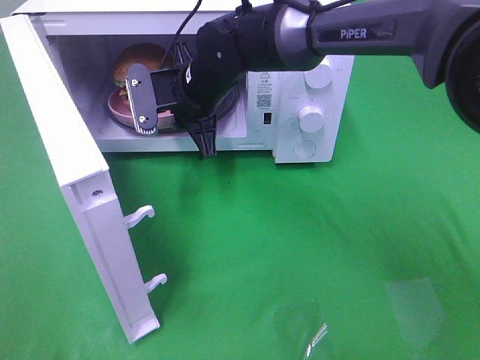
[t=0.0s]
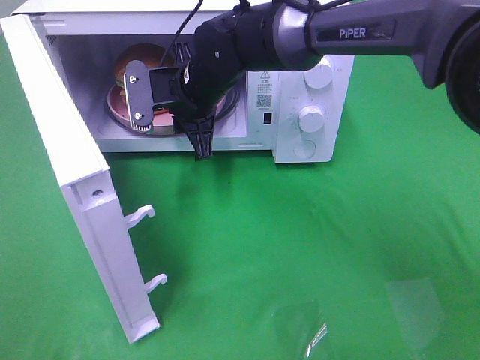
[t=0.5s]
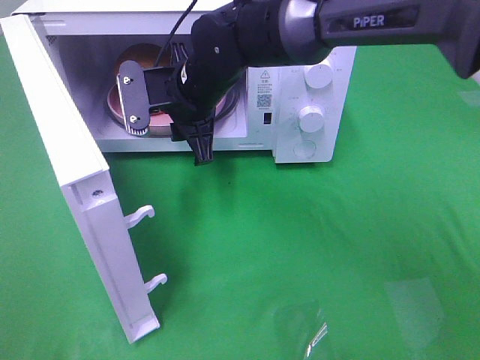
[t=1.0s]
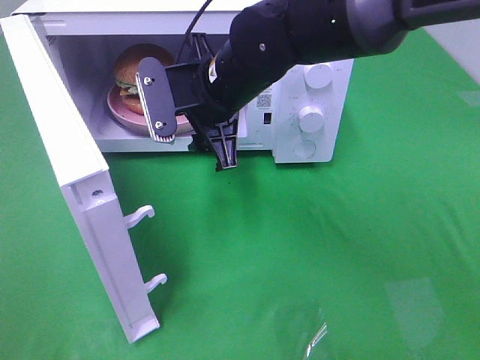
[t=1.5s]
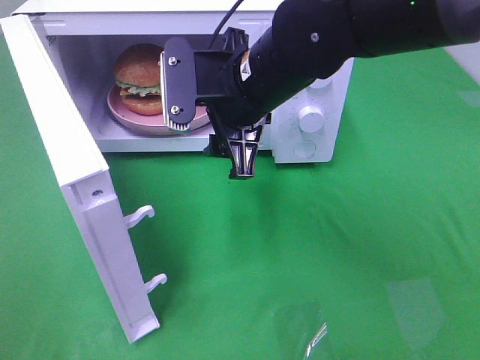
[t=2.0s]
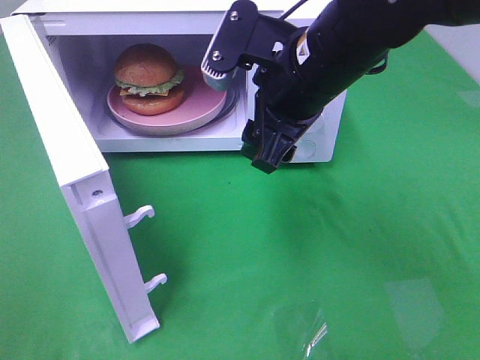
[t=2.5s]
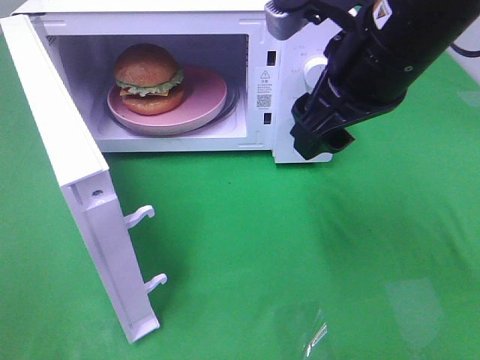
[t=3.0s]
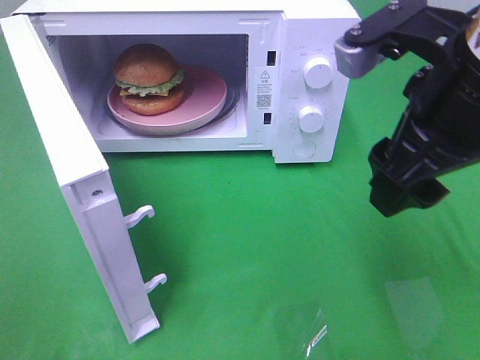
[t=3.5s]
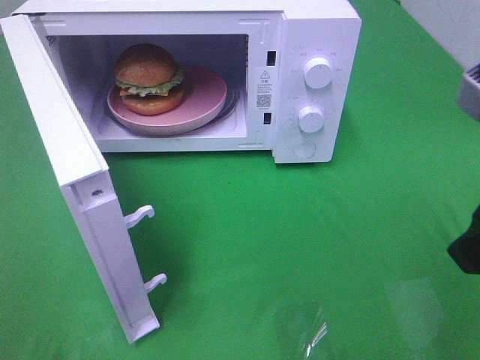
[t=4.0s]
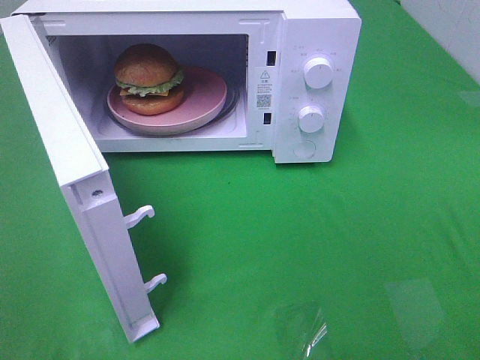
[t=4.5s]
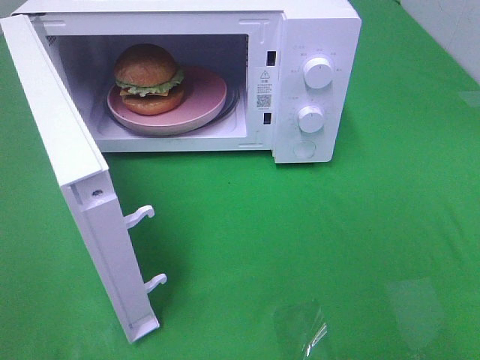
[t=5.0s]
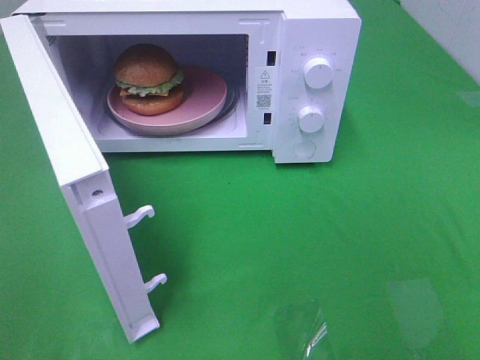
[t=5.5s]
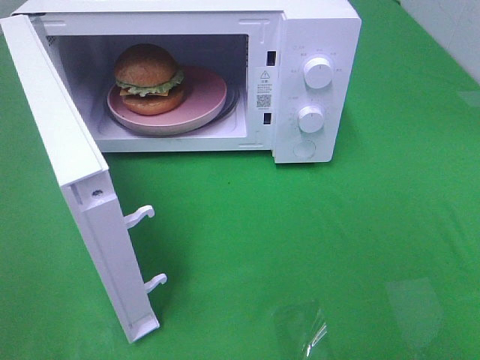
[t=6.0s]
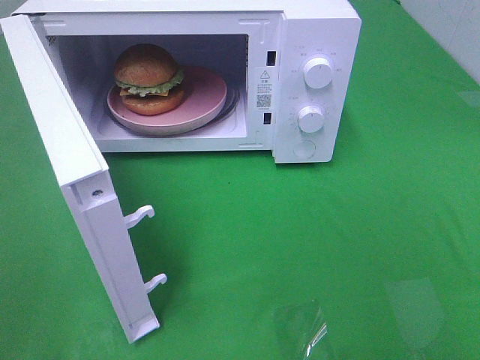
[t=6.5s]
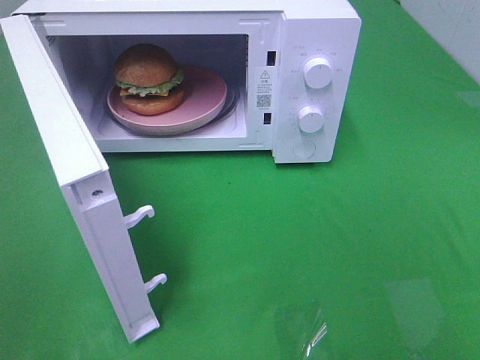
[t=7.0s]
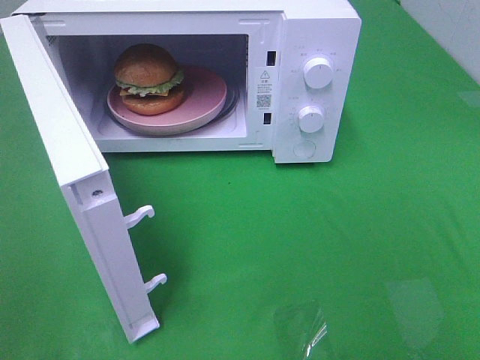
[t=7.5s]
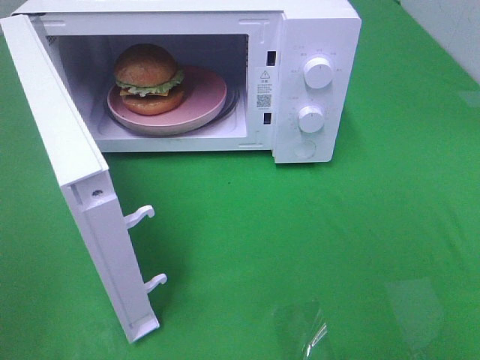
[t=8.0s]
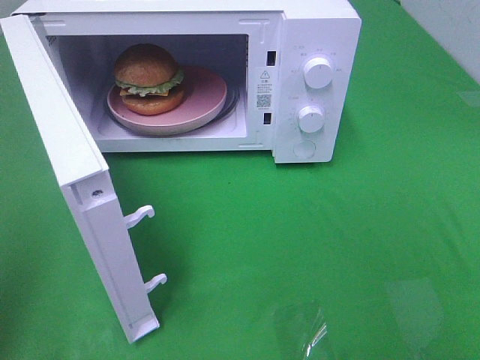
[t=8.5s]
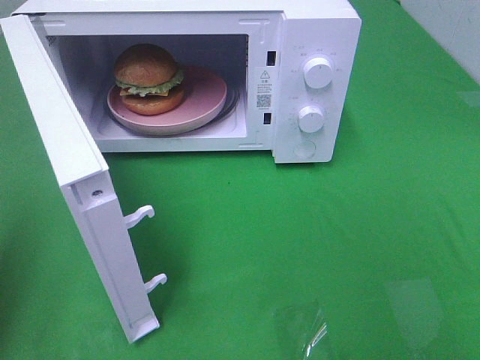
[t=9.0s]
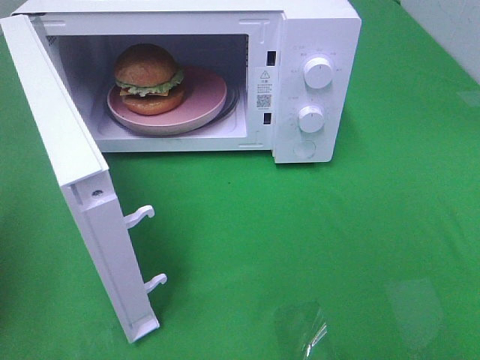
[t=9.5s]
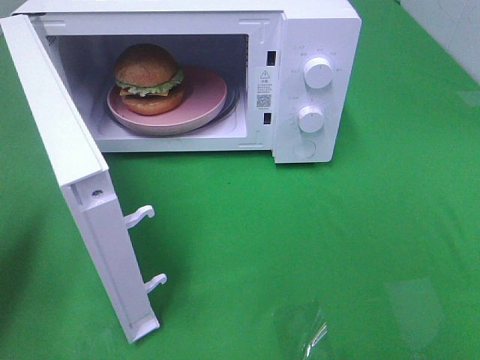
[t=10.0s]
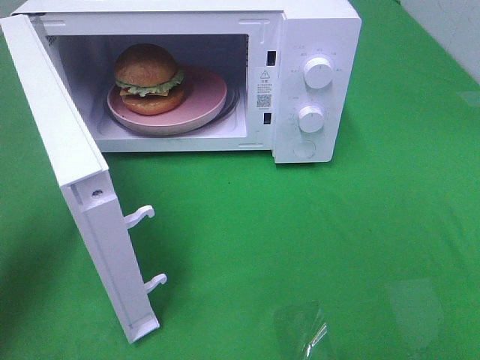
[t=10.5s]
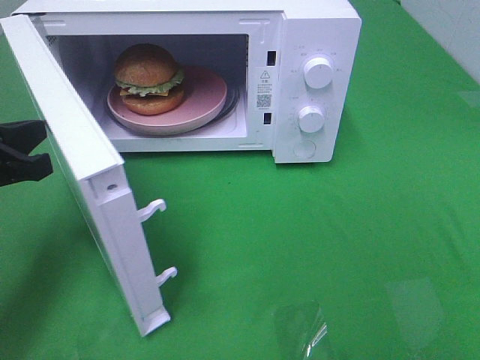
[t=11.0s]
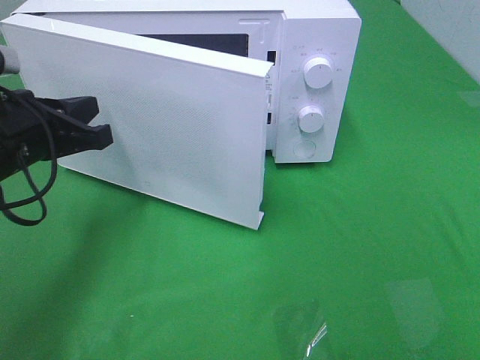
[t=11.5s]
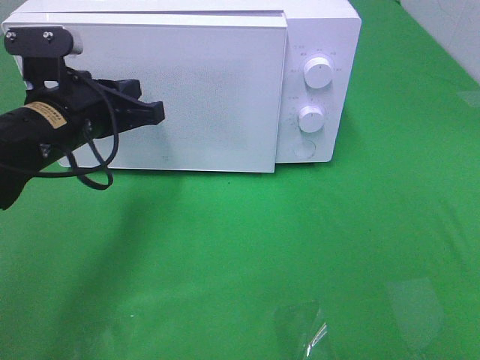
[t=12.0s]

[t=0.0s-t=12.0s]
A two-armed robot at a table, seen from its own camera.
Task of the whole recording: Heat the burger.
t=0.0s to t=2.0s: The right gripper shifts about 15 cm backward, to the right and upward, and opens its fingers.
t=2.0s to t=4.0s: The right gripper goes about 25 cm to the right and backward.
t=4.0s to t=6.0s: The right gripper goes some 15 cm backward and to the right.
t=8.0s to t=10.0s: The left gripper is displaced forward and downward by about 20 cm, and closes.
t=10.0s to t=12.0s: The left gripper heads to the right and forward, covering approximately 20 cm.

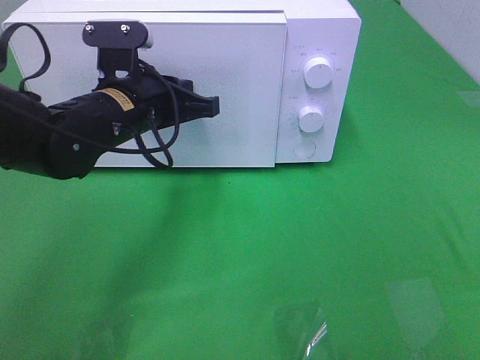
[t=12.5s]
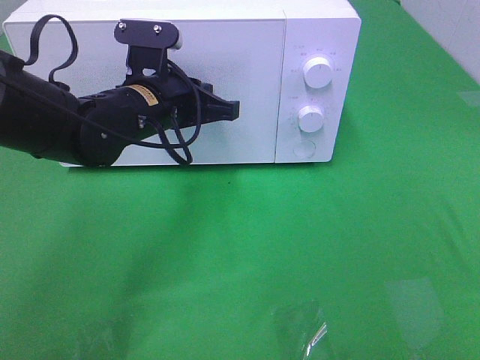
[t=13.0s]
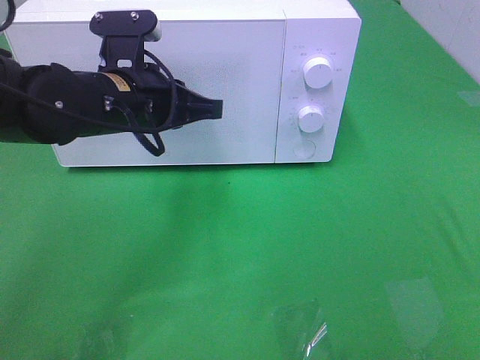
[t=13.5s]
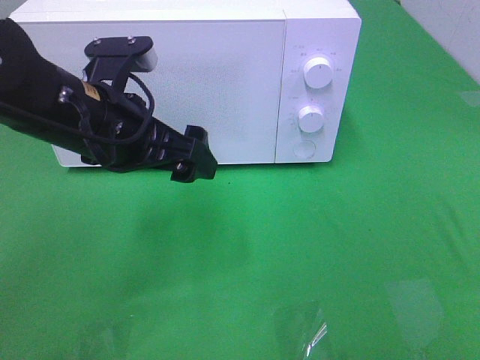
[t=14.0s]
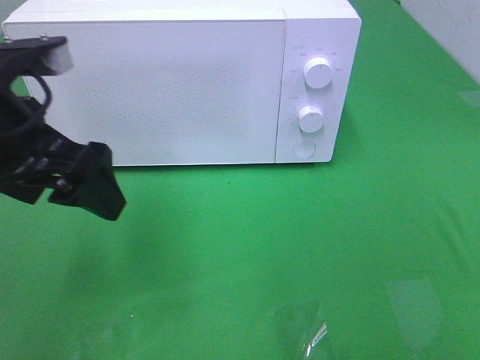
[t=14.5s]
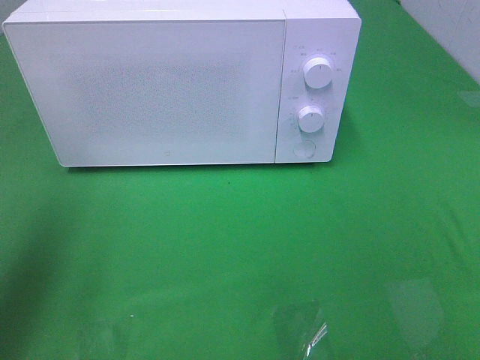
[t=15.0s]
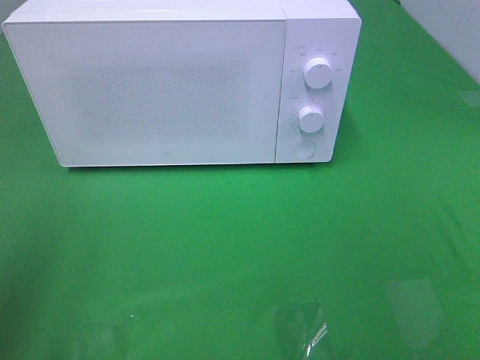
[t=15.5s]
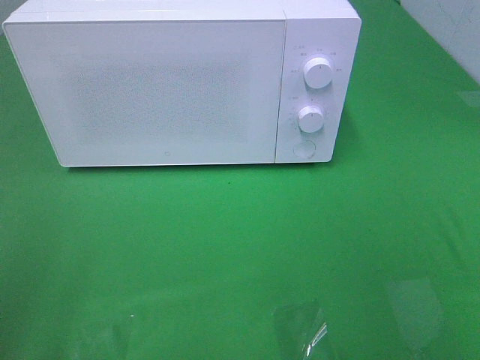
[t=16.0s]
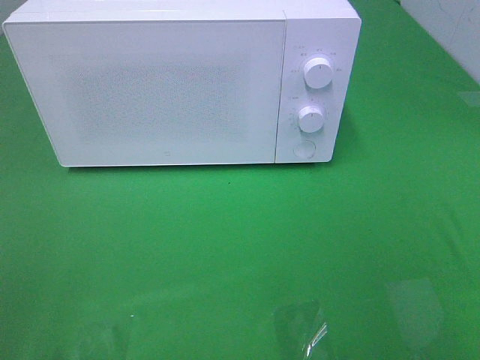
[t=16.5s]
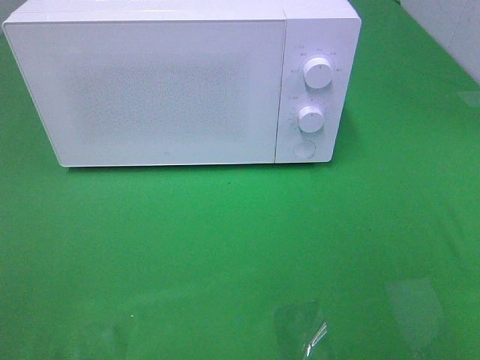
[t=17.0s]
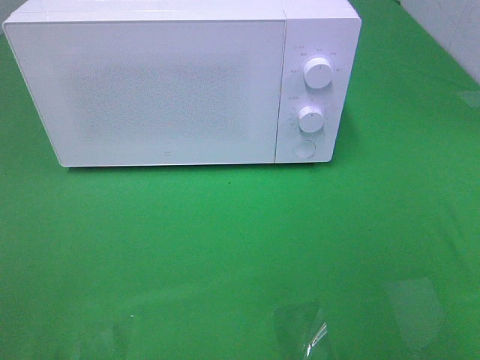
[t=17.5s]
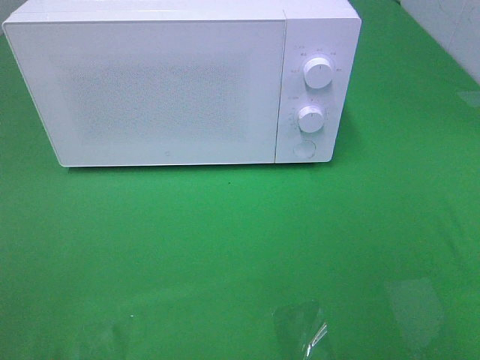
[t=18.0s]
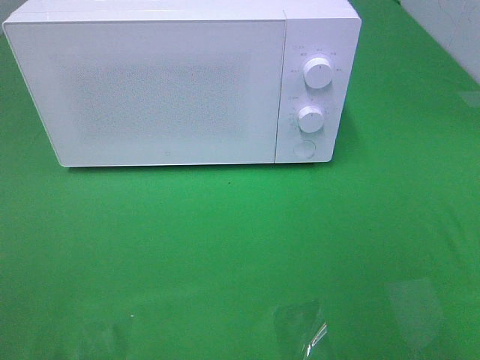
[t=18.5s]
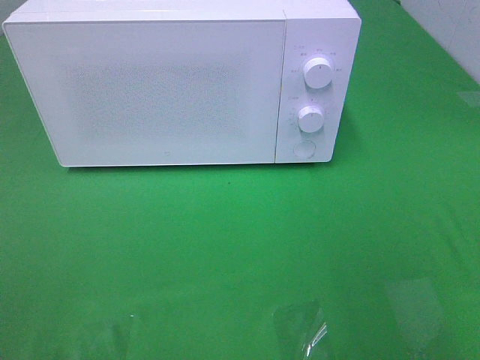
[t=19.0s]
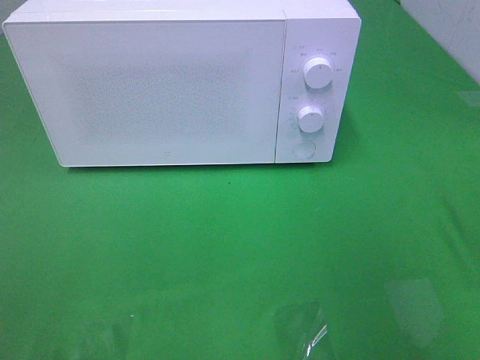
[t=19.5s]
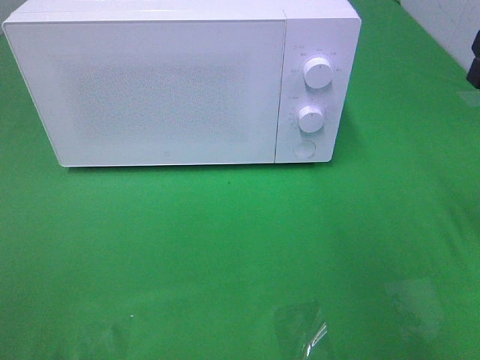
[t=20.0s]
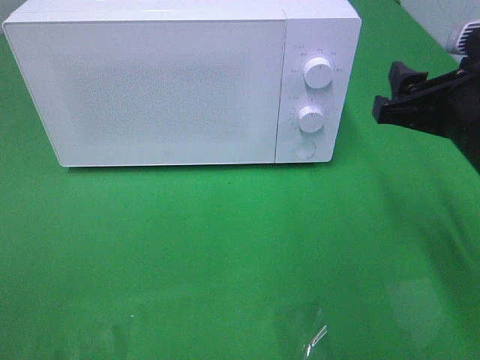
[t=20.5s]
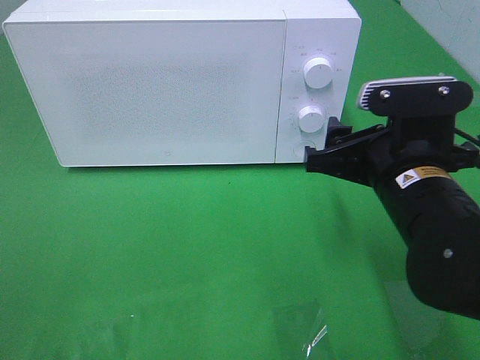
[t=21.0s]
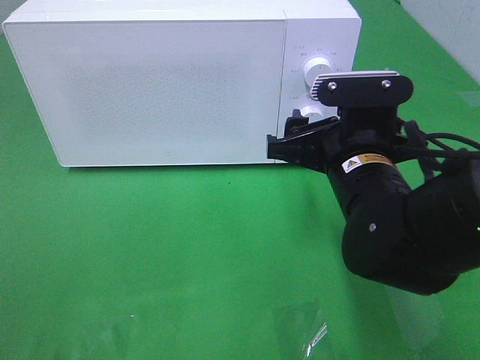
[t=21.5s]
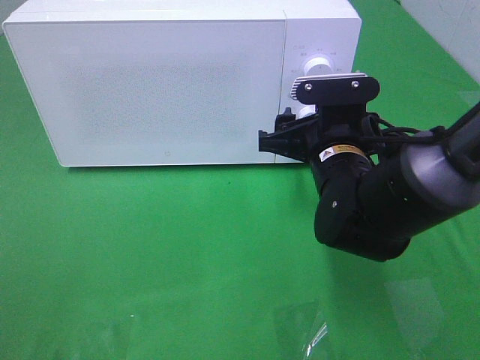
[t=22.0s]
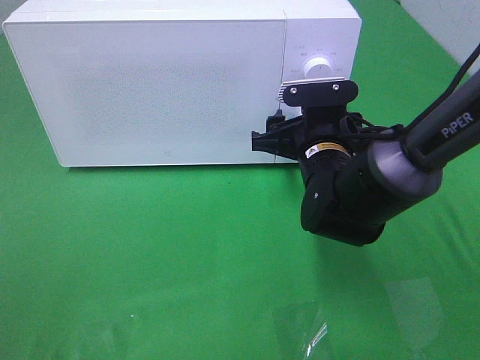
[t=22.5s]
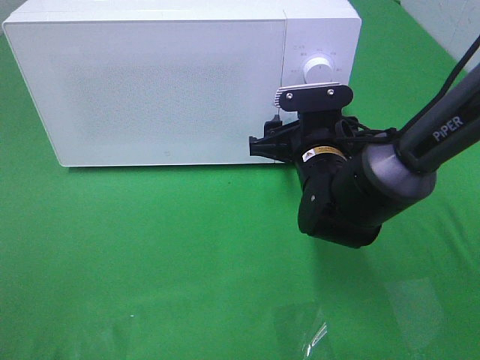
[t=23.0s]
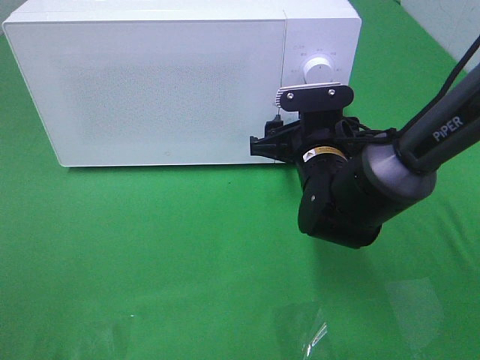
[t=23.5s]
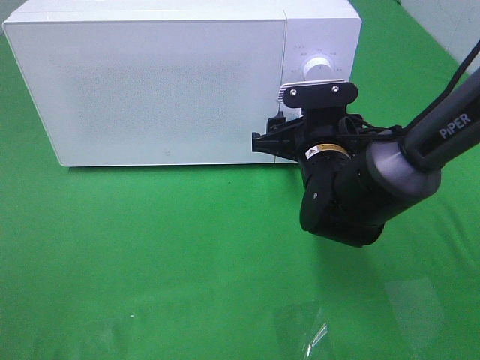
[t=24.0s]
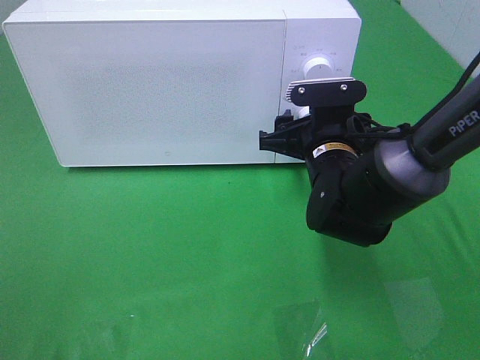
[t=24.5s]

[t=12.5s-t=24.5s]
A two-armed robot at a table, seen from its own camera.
Task of the whole recording: Heat the burger.
t=12.5s to t=14.5s: The left gripper moves backward, upward and to the left, about 15 cm, and opens its fingers.
t=14.5s to t=16.5s: The left gripper heads backward and to the left, covering some 25 cm.
t=18.5s to t=20.5s: The right gripper heads forward, downward and to the left, covering approximately 25 cm.
t=20.5s to t=22.5s: The right gripper travels to the left, downward and forward by roughly 15 cm.
t=22.5s to t=24.5s: Both grippers stay about where they are.

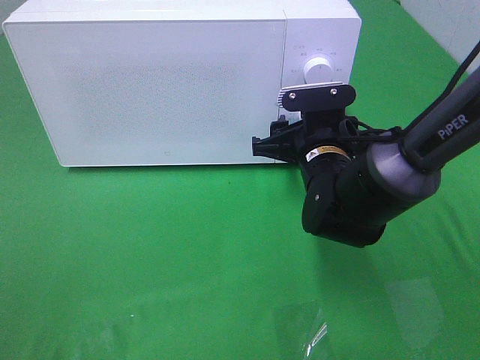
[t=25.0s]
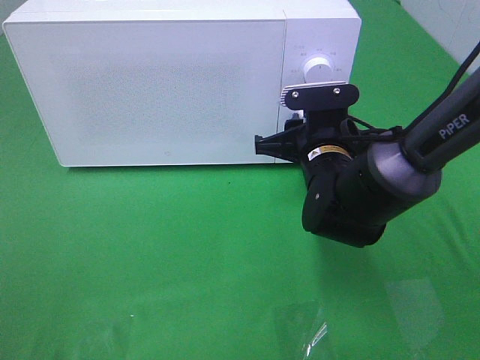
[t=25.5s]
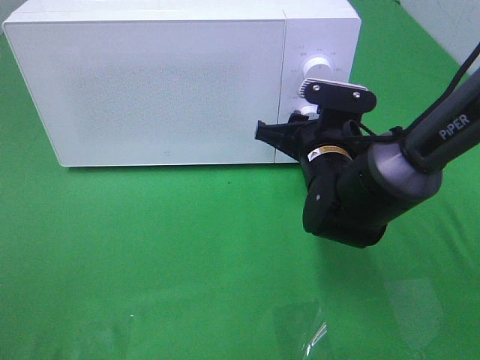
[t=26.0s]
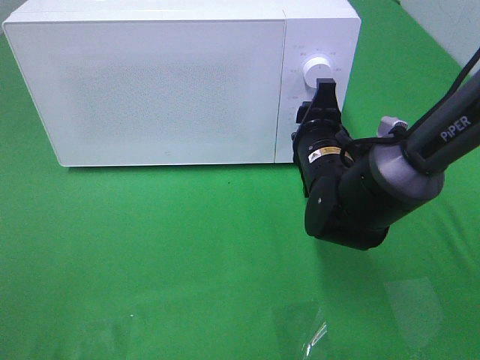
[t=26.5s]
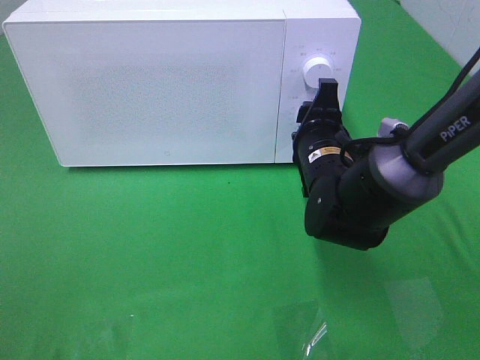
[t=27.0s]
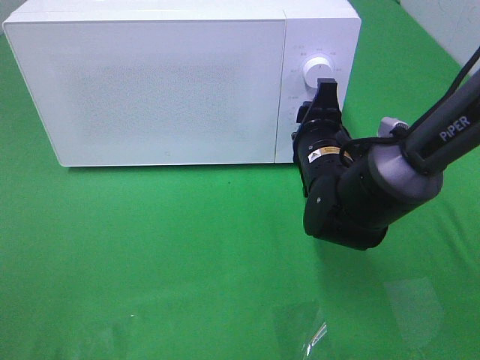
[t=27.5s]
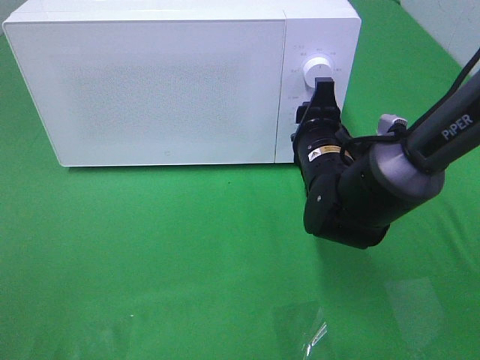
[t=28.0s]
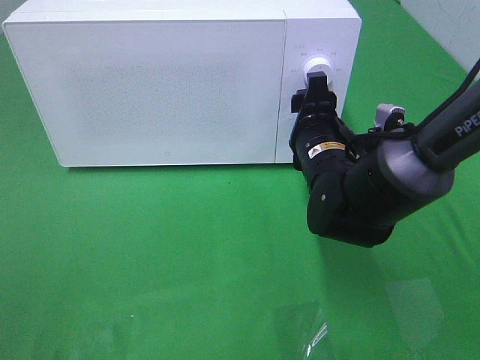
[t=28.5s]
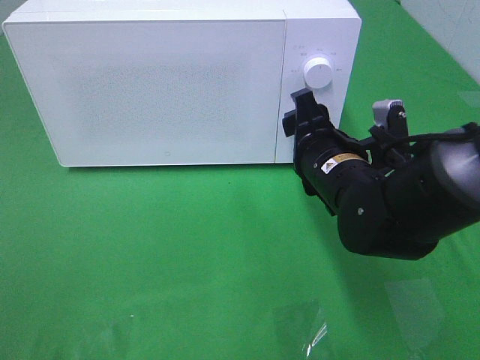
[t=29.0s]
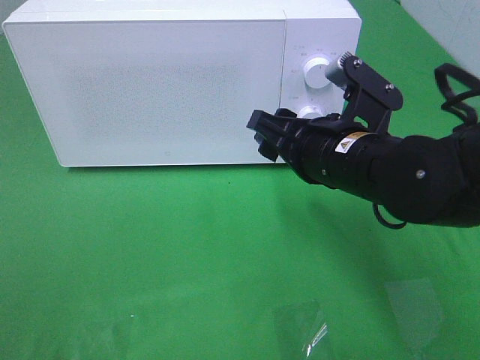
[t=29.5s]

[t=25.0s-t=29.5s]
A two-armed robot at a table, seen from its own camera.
Task of the whole recording: Heat the burger.
t=27.0s to t=29.5s: The right gripper is displaced upward and backward by roughly 10 cm.
